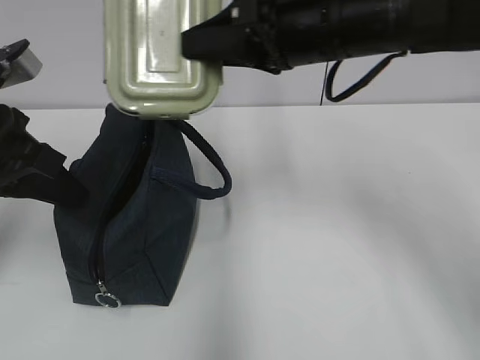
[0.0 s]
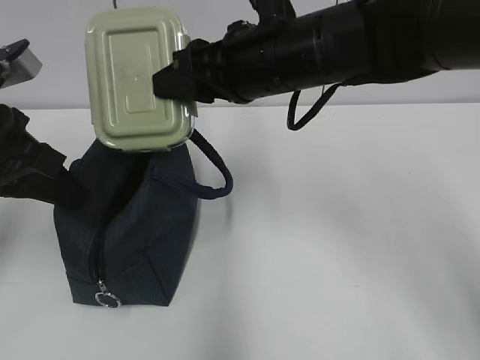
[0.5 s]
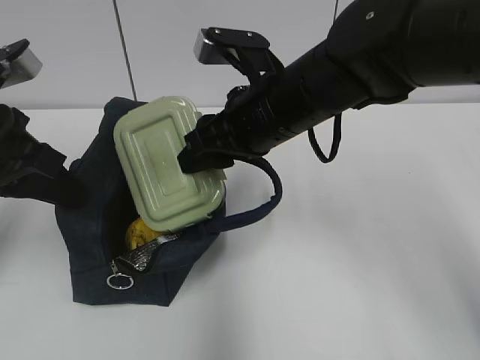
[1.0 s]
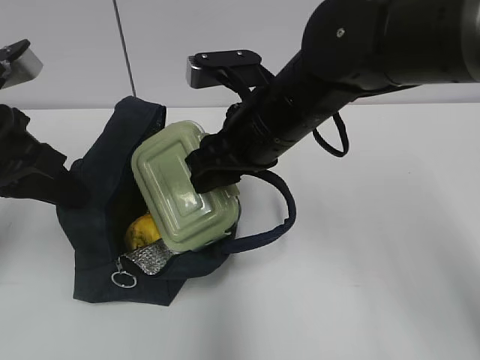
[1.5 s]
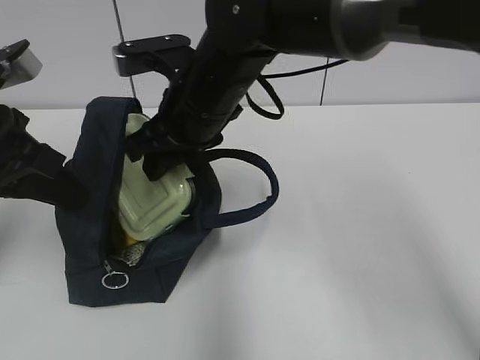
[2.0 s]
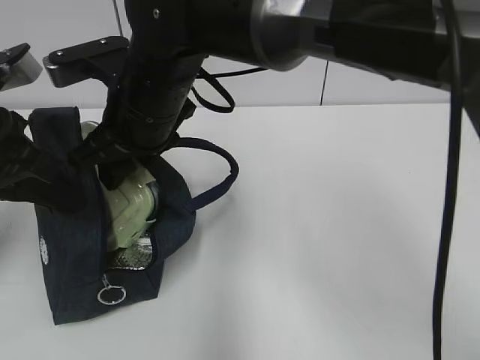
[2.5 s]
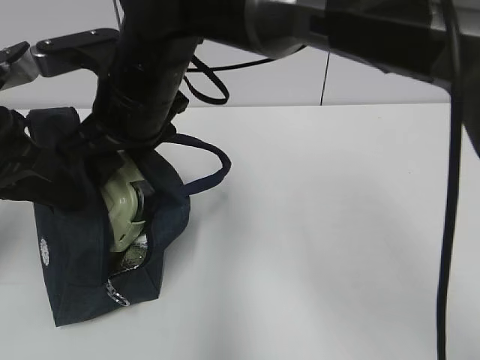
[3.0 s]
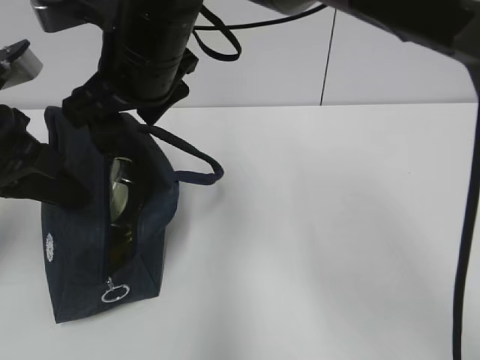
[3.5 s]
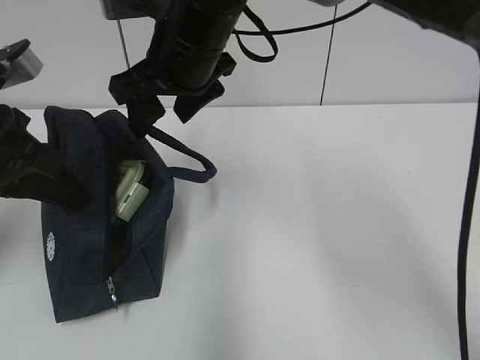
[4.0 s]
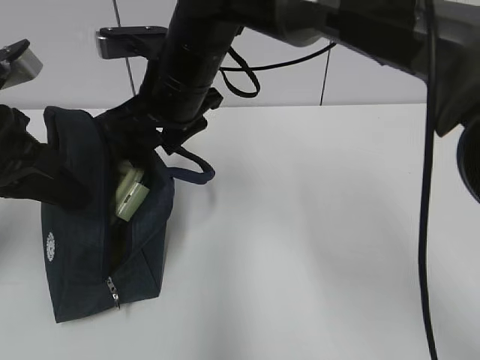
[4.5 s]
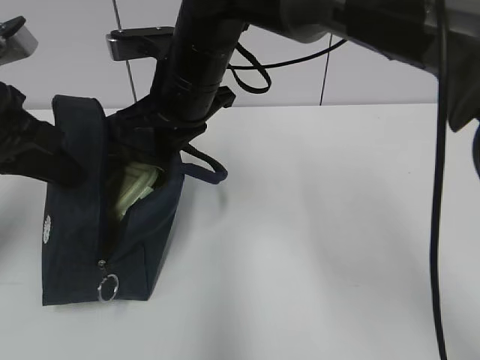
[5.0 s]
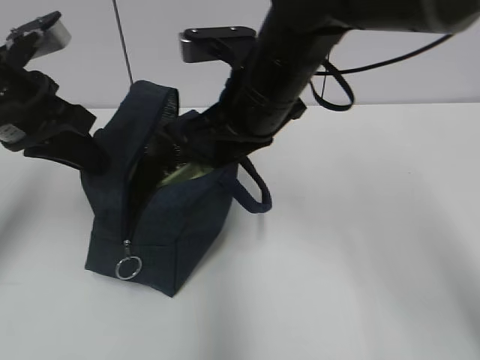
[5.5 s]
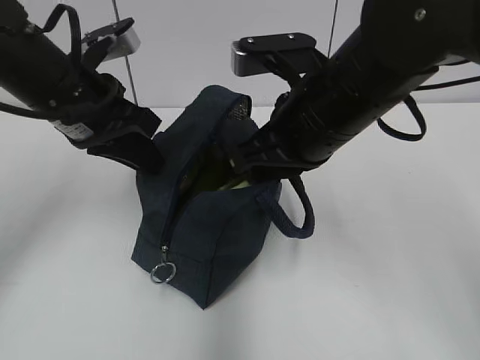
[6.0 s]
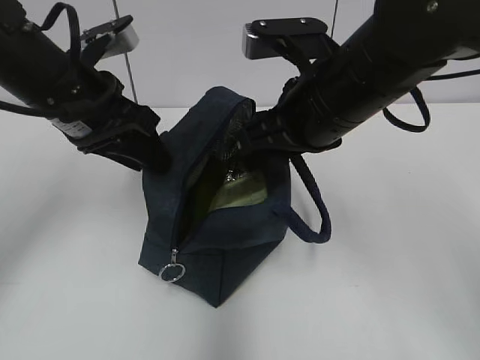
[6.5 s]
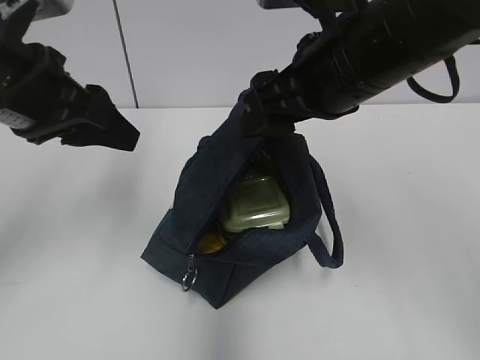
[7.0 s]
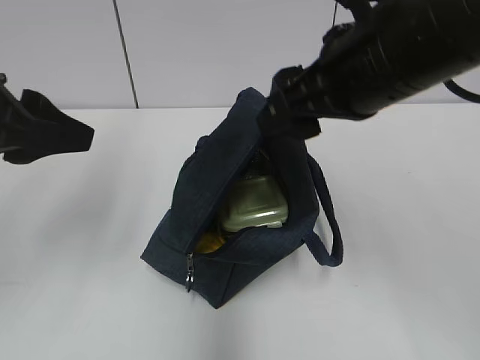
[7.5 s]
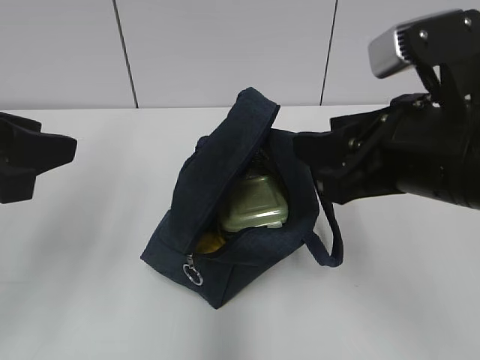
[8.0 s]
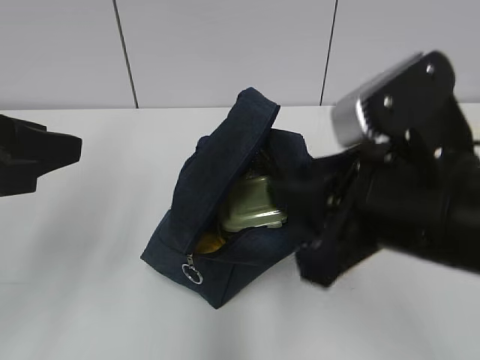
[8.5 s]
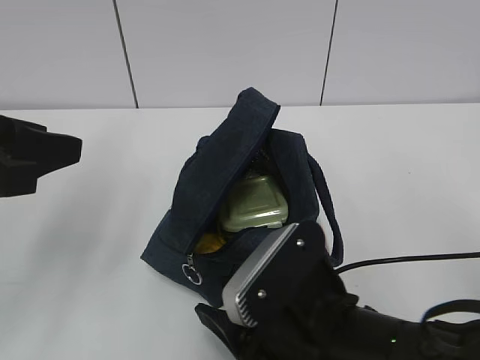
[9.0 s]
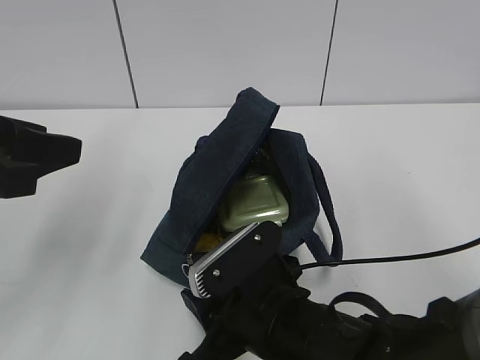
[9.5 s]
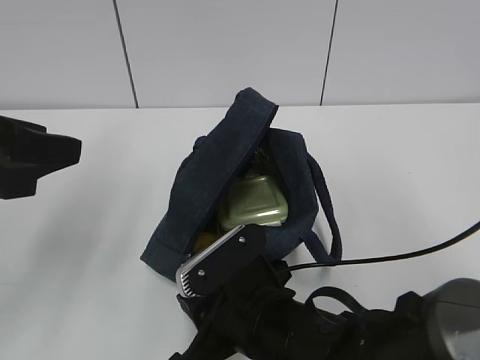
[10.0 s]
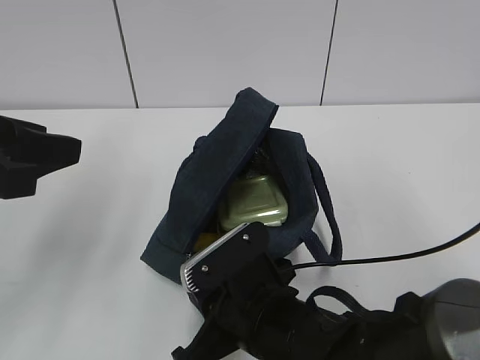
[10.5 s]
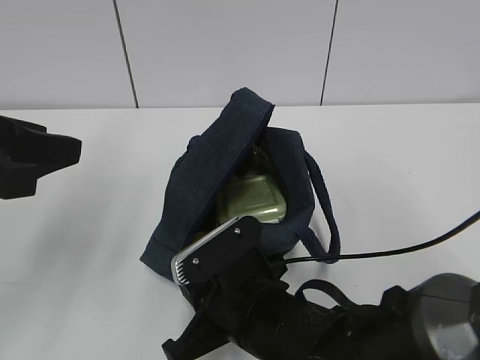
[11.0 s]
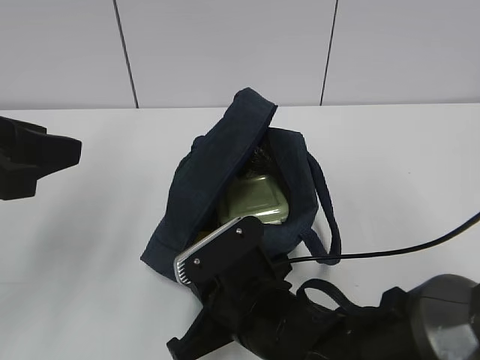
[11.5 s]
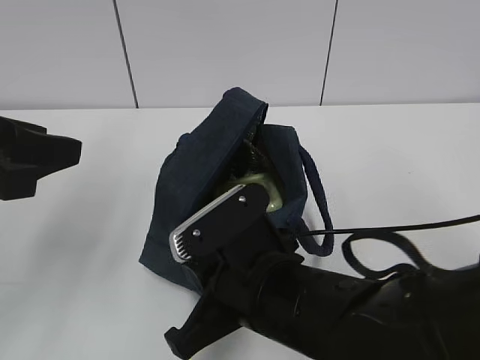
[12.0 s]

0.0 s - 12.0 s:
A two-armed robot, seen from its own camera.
Step, 4.0 s - 4.5 s: Grab the lunch bag with your right hand.
Step, 5.0 s - 6.5 s: Move the lunch bag to the right.
0.0 s - 2.0 s: The right gripper is displaced to the left and downward by about 15 cm.
2.0 s - 4.0 s: The right gripper changes place by approximately 5 cm, and opens up.
4.0 s - 6.0 s: The right gripper heads to the right and backward, covering some 15 cm, and closes up. The left gripper shifts approximately 10 cm to the right and forward.
6.0 s - 8.0 s: The right gripper is displaced backward and to the right by some 10 cm, and opens. The left gripper shifts about 15 cm backward and to the left, and opens up.
8.0 s - 10.0 s: The right gripper heads downward and to the left, covering approximately 20 cm.
10.0 s - 12.0 s: The right gripper is displaced upward by approximately 5 cm, and closes its fingers.

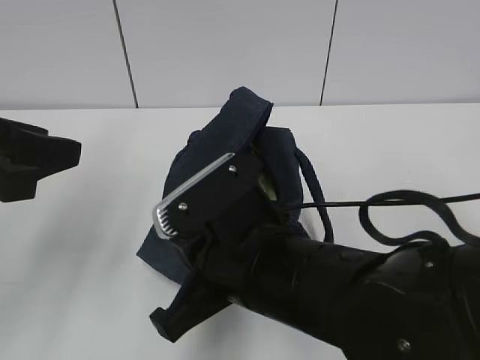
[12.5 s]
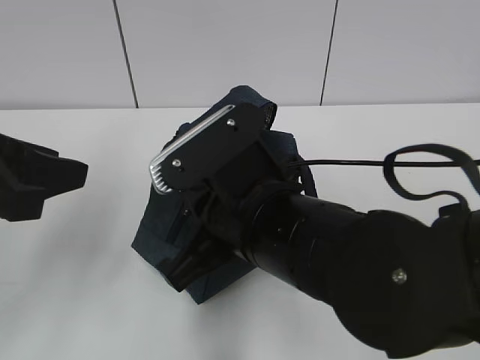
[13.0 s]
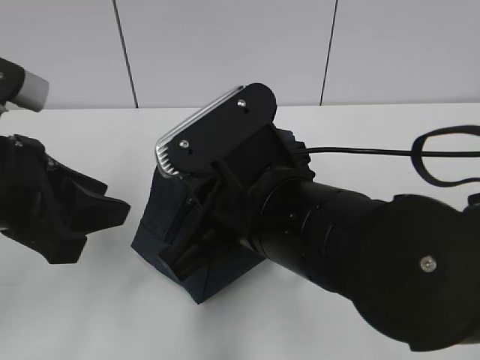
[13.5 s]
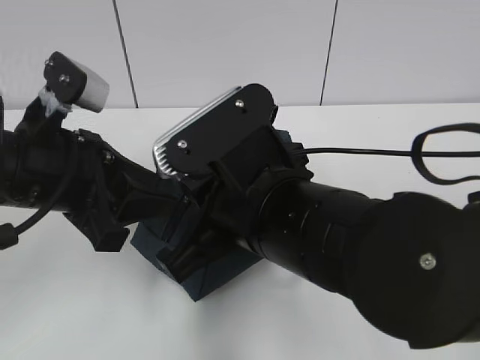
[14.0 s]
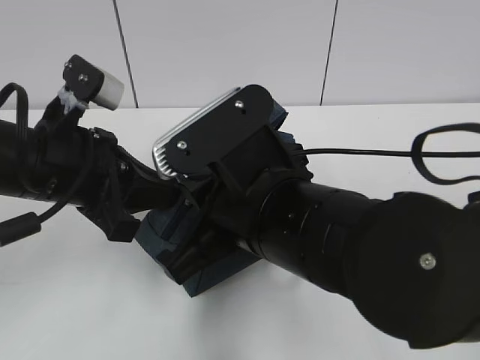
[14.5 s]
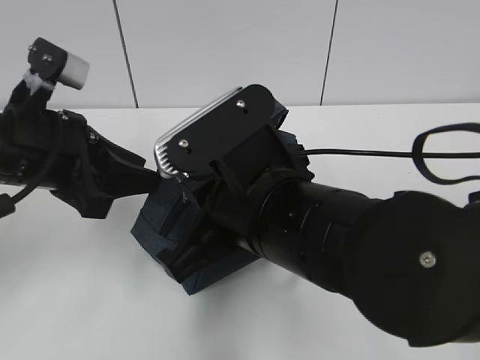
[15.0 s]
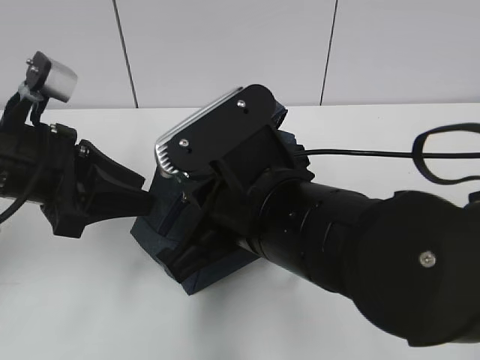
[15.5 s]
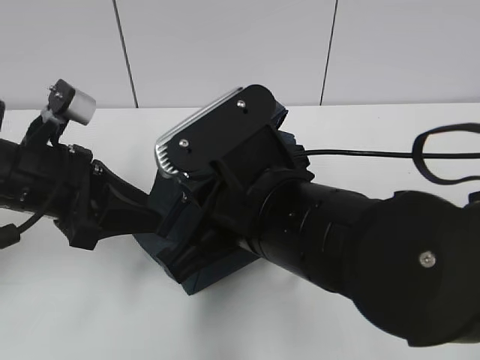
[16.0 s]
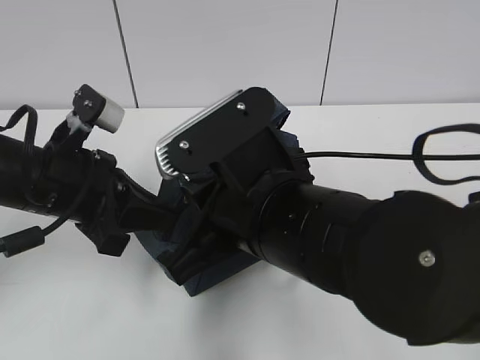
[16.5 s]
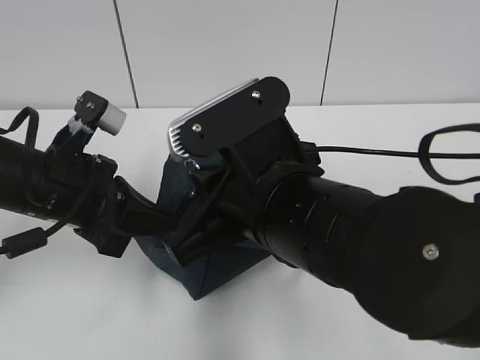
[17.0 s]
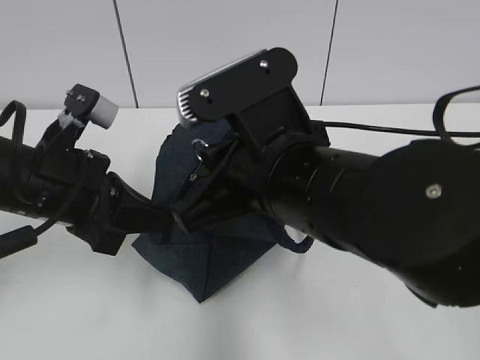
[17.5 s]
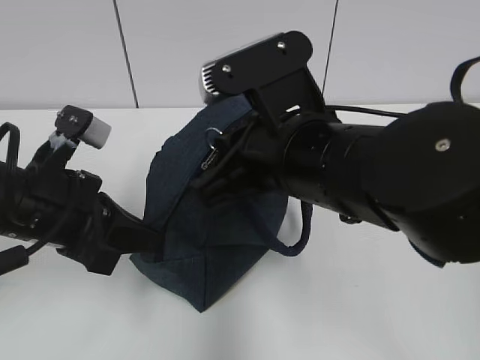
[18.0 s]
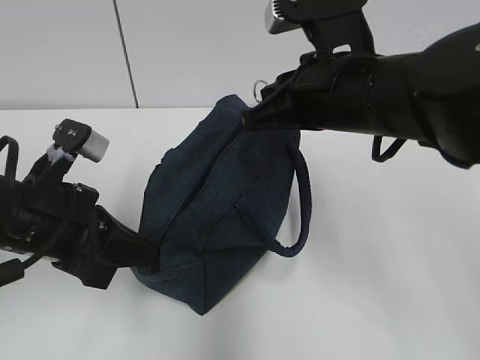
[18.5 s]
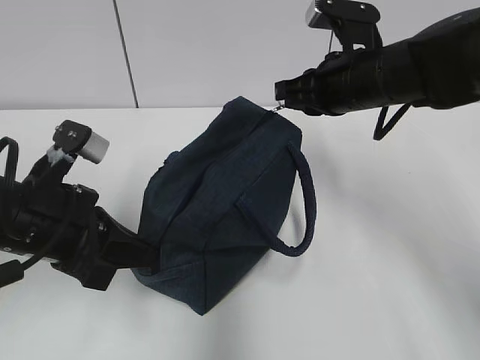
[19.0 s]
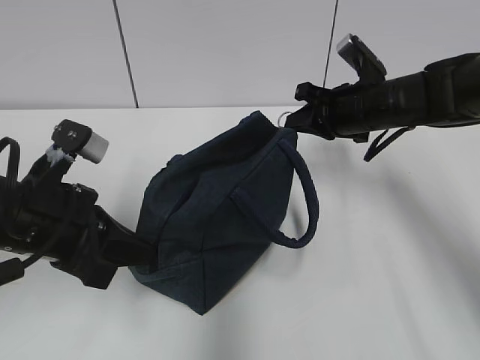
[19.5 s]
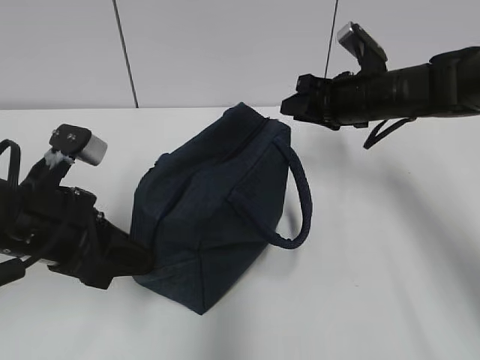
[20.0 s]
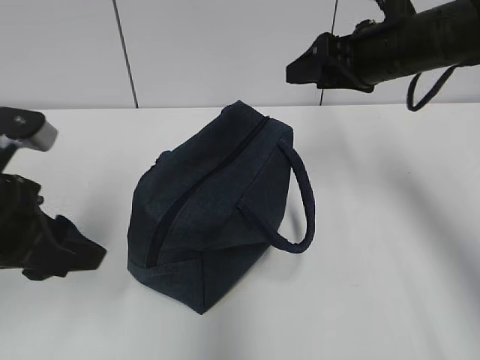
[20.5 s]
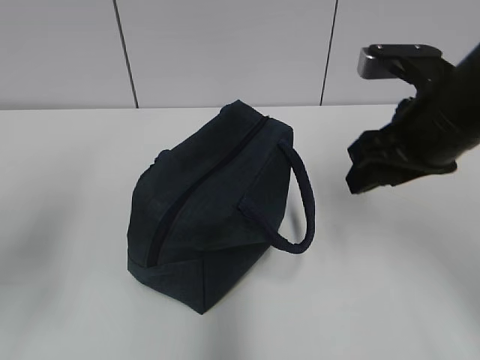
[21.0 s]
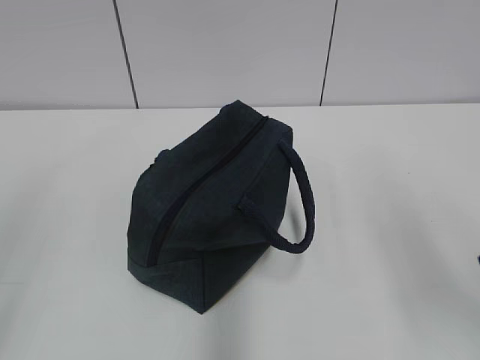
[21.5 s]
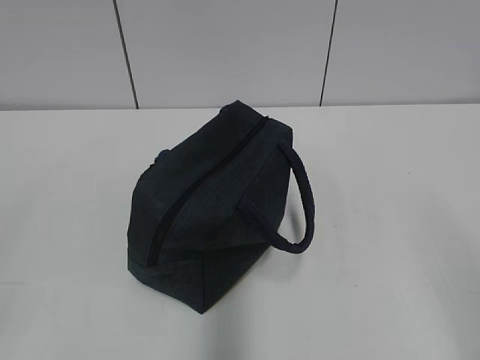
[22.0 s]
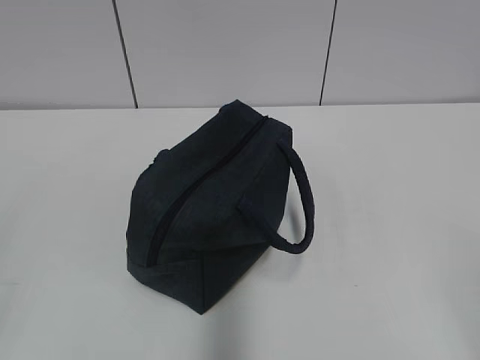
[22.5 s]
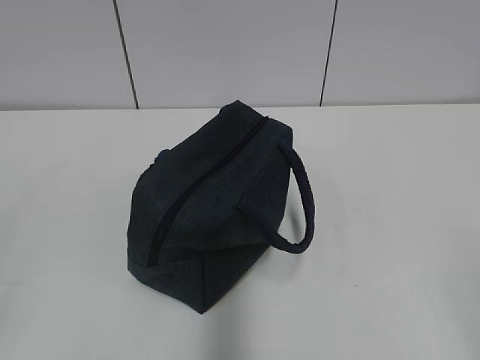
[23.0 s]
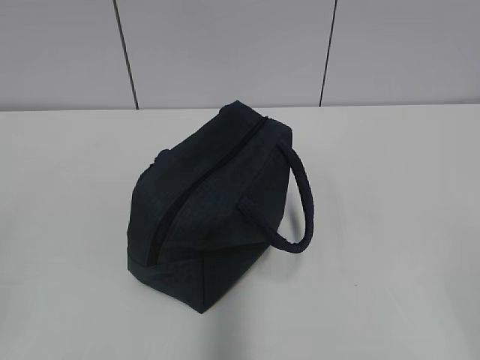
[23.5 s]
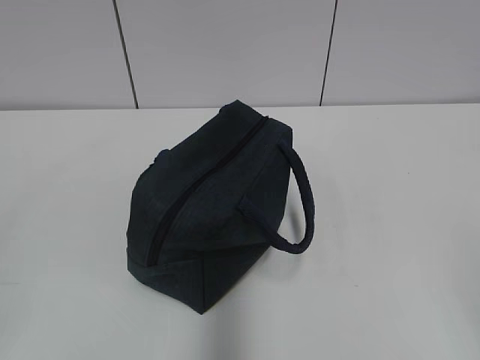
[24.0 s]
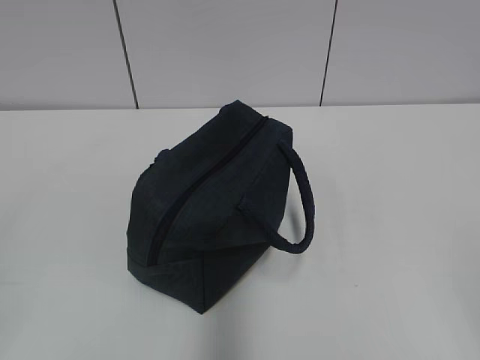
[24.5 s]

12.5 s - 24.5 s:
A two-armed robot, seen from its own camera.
Step, 12.5 s - 19.5 s: Pull the zipper with your right hand.
12.5 s - 14.5 s: The left gripper goes about 10 cm forward, downward and to the right, and closes.
14.5 s - 16.5 s: The left gripper opens, then closes again.
16.5 s - 18.5 s: The right gripper moves forward and to the right, about 10 cm.
18.5 s - 20.5 s: The right gripper heads forward and to the right, covering about 15 cm, and opens up; the left gripper opens its fingers.
20.5 s - 22.5 s: The left gripper is displaced backward and to the left by some 25 cm. The right gripper goes about 40 cm backward.
